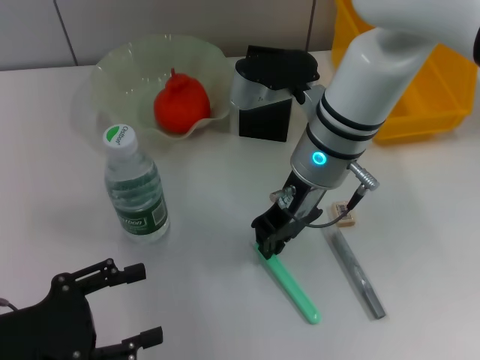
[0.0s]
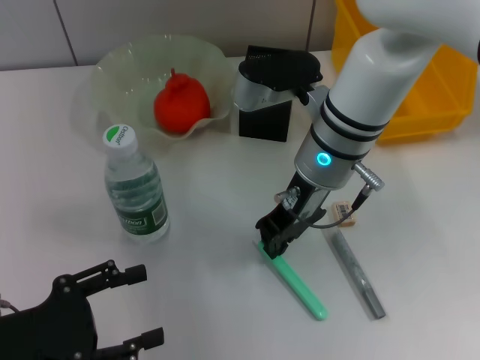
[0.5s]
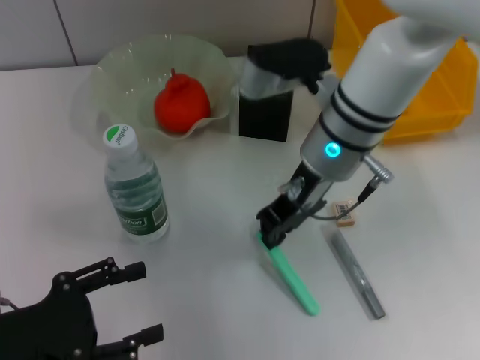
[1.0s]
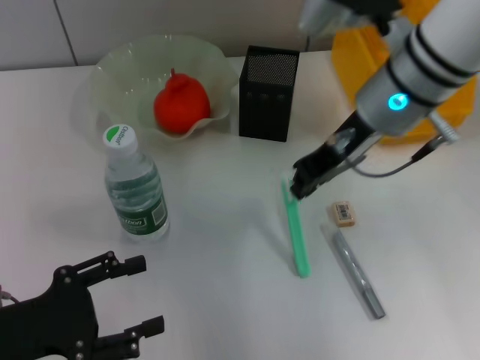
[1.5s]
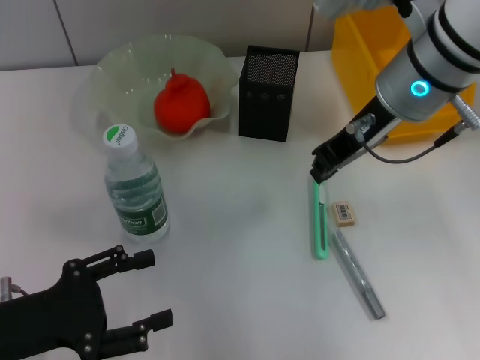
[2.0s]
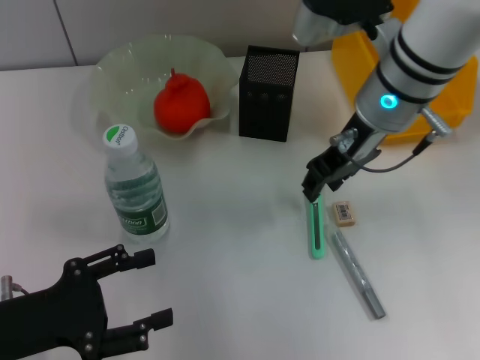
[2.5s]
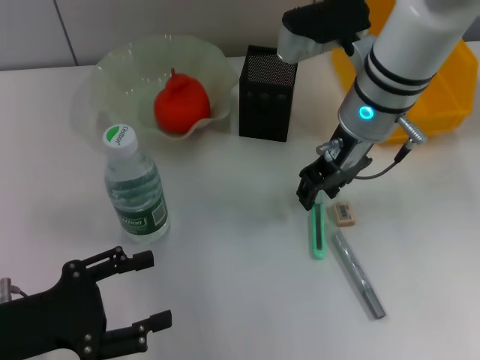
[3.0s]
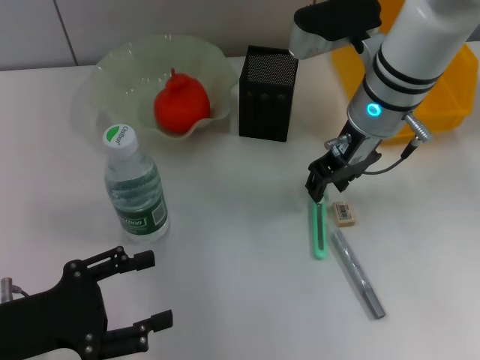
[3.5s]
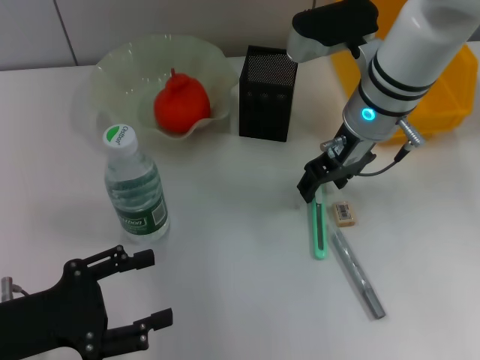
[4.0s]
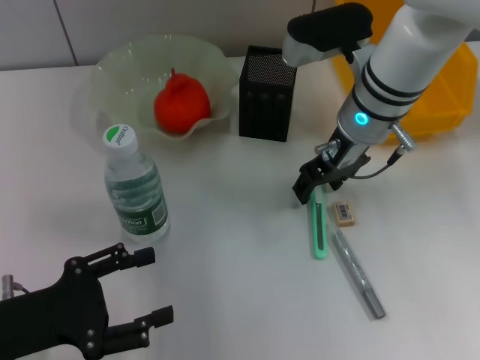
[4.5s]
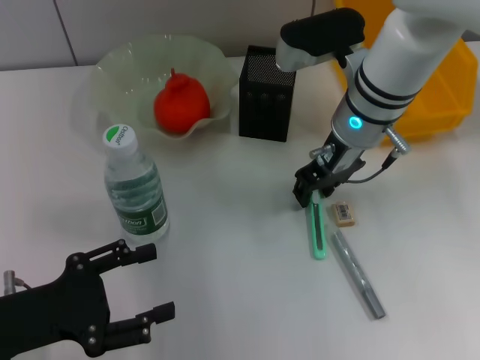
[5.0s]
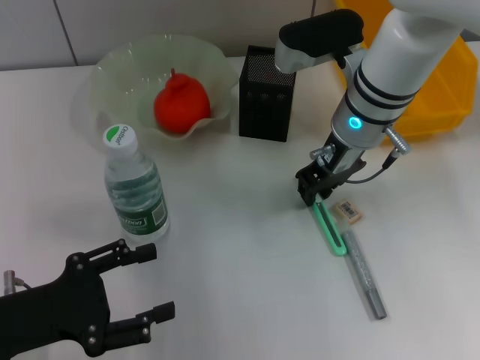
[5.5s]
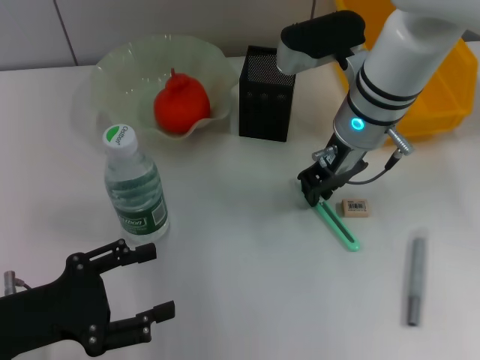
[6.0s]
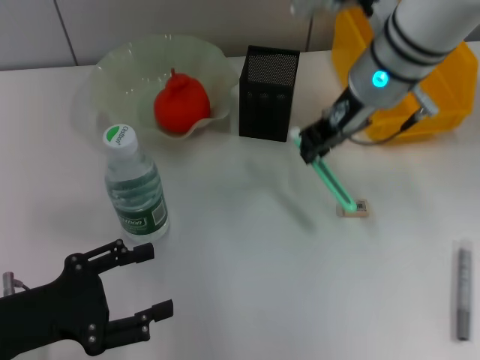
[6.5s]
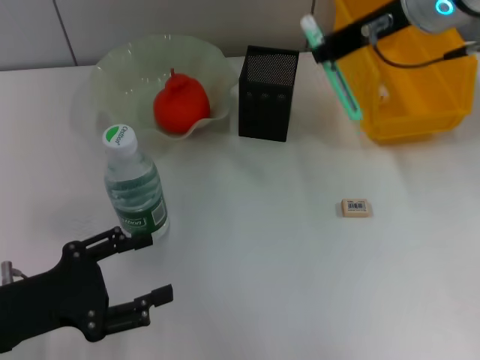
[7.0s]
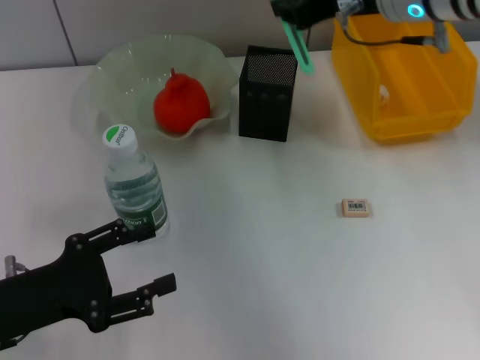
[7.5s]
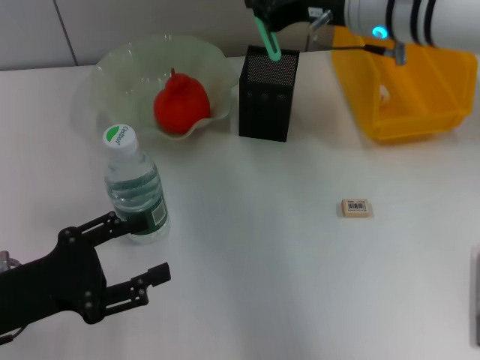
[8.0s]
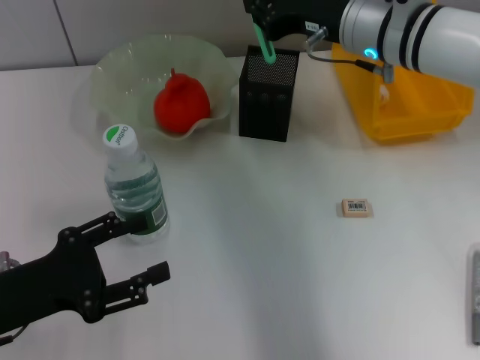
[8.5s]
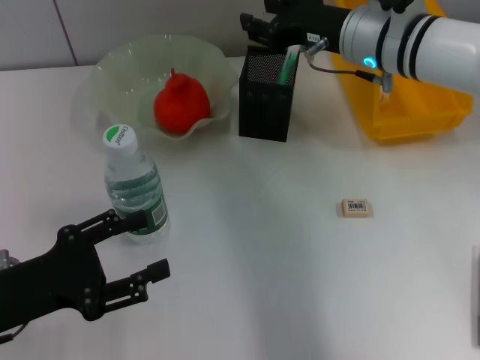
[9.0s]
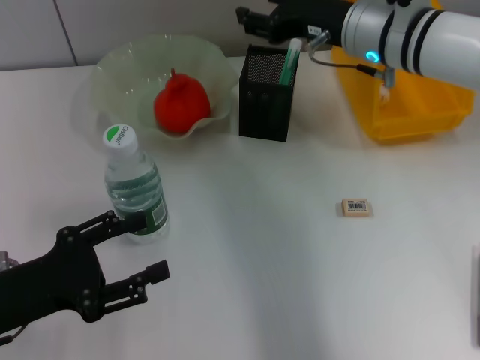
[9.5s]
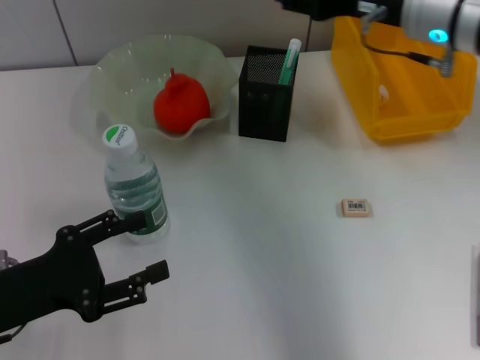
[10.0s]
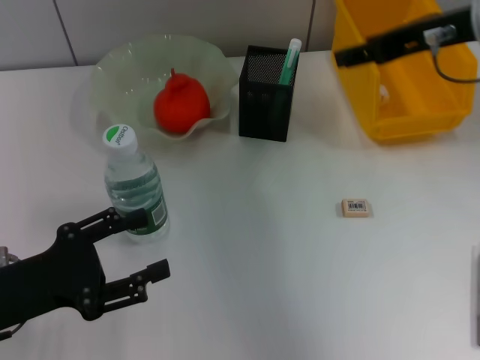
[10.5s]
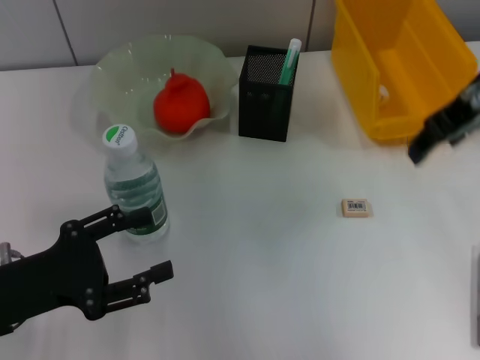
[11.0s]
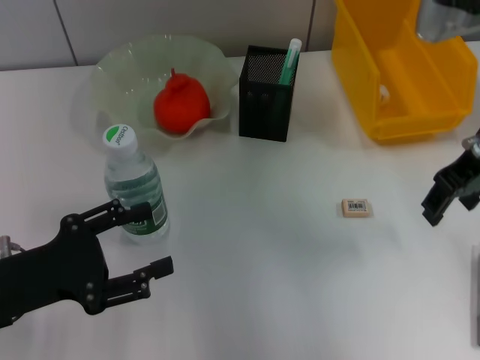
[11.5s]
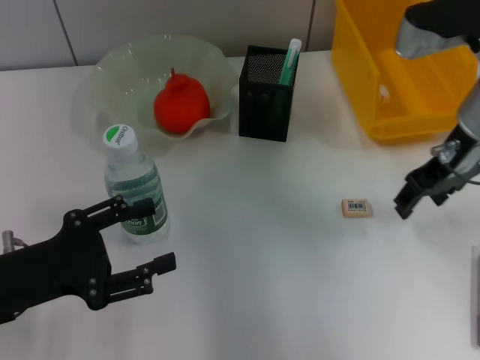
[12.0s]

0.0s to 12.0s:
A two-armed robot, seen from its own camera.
Step, 0.0s to 5.5s: Grab the blue utility knife with the right hand.
Step, 6.0s to 9.0s: Place the blue utility knife into the pen holder with the right hand.
0.0s to 2.0s: The right gripper heads upward and to the right, covering approximately 10 cm.
2.0s to 4.0s: The right gripper shifts about 5 cm downward, and opens up.
4.0s to 6.0s: The right gripper closes.
6.0s to 8.0s: The right gripper shifts about 5 cm upward.
8.0s to 10.0s: The right gripper moves roughly 5 cm, and opens its fingers.
10.0s to 12.0s: The right gripper moves some 5 cm upward and comes back.

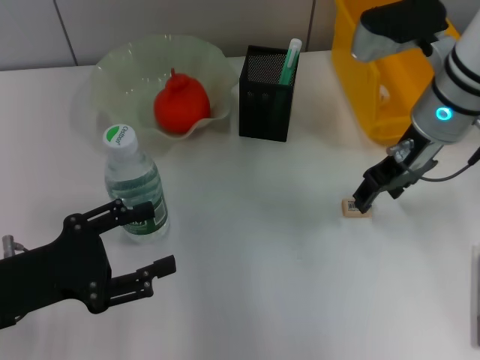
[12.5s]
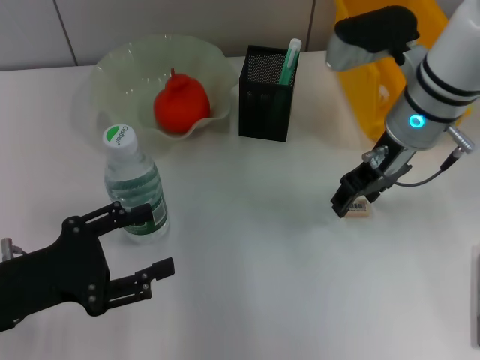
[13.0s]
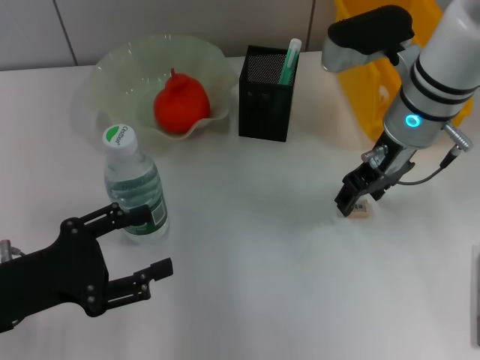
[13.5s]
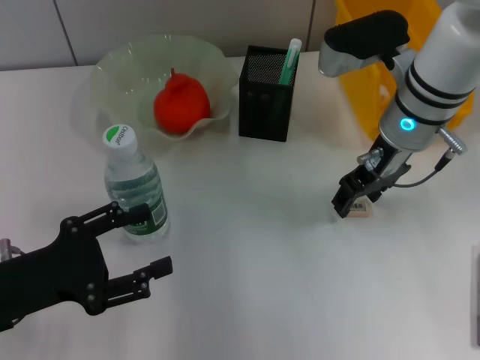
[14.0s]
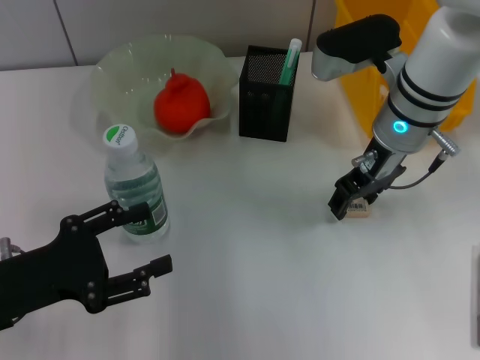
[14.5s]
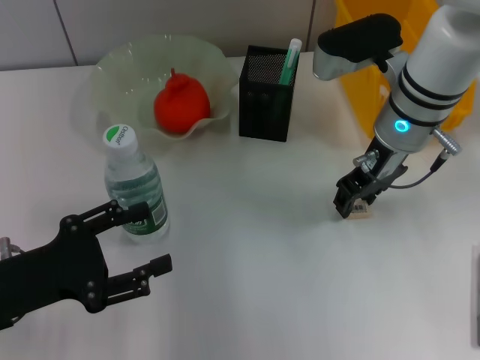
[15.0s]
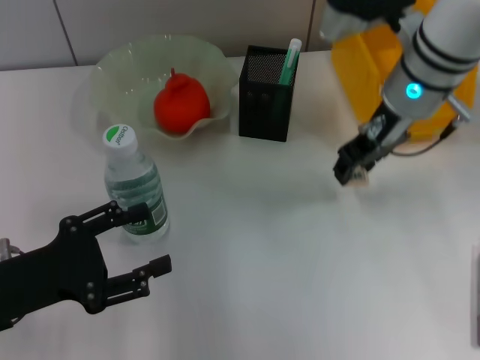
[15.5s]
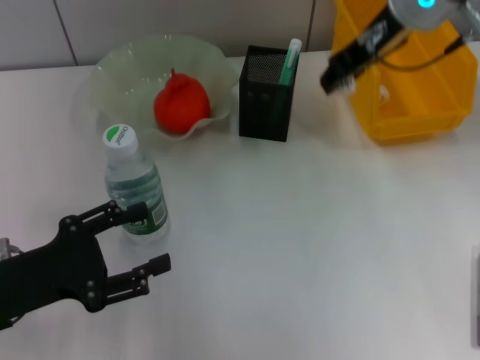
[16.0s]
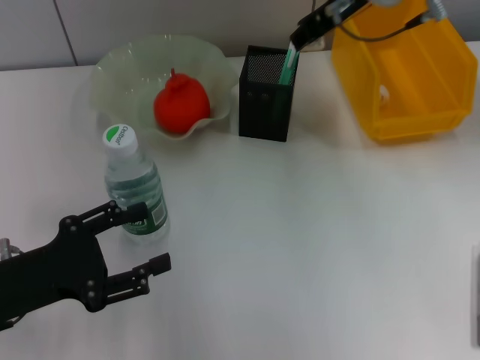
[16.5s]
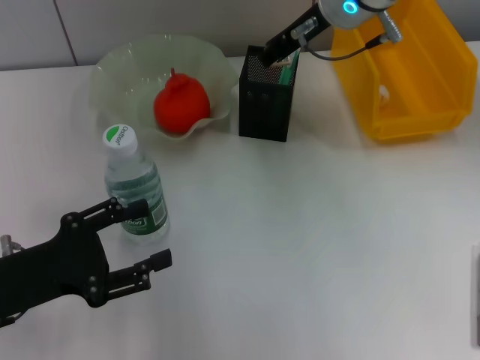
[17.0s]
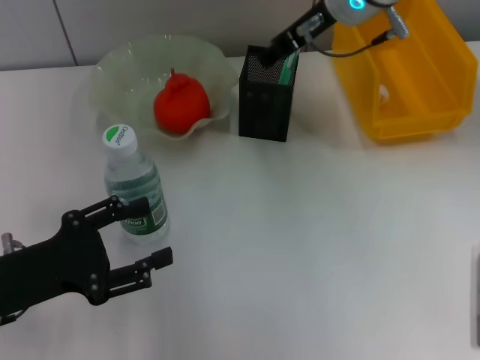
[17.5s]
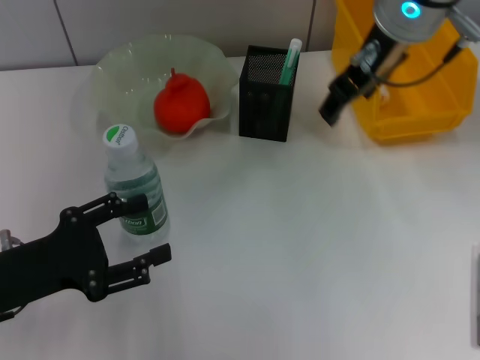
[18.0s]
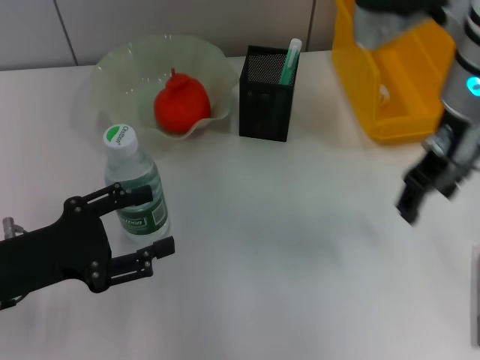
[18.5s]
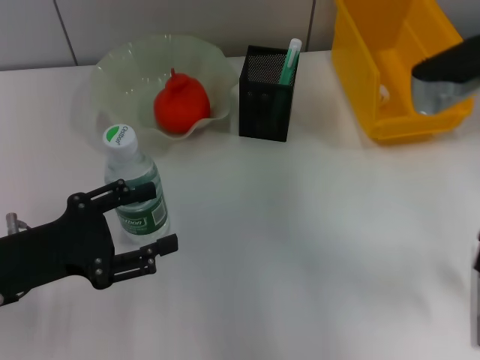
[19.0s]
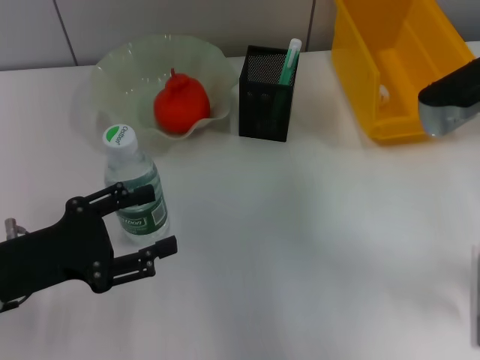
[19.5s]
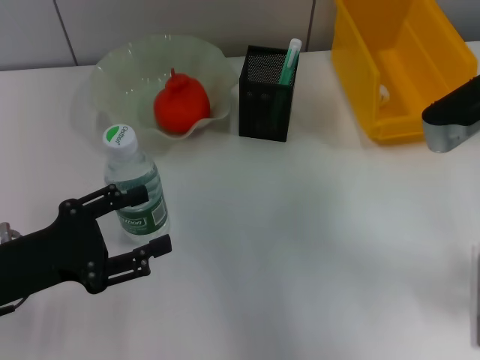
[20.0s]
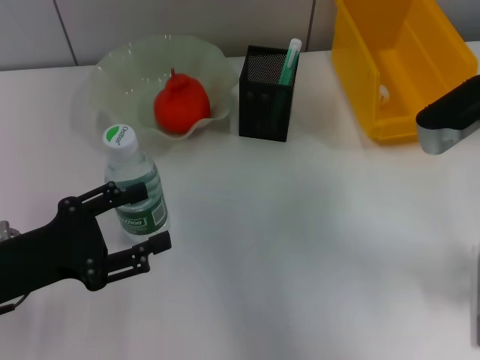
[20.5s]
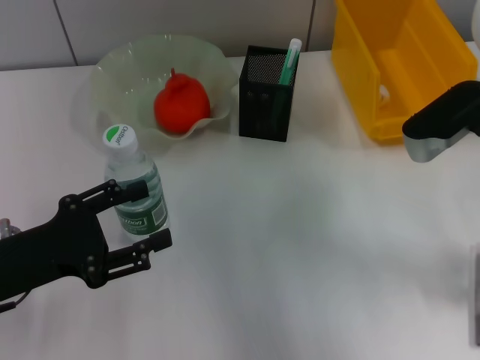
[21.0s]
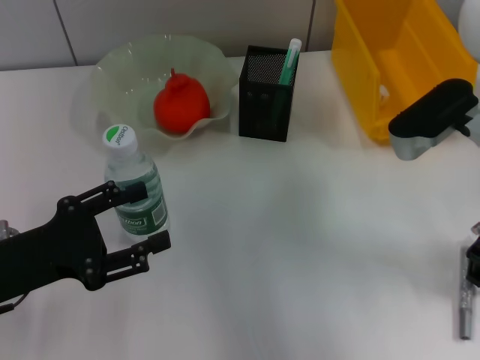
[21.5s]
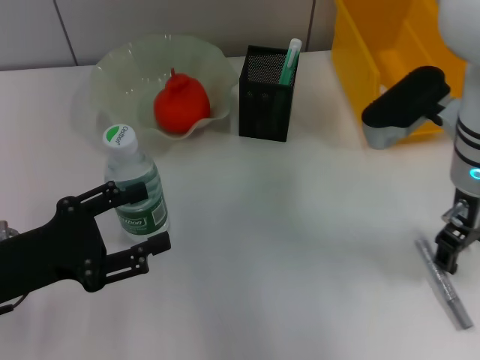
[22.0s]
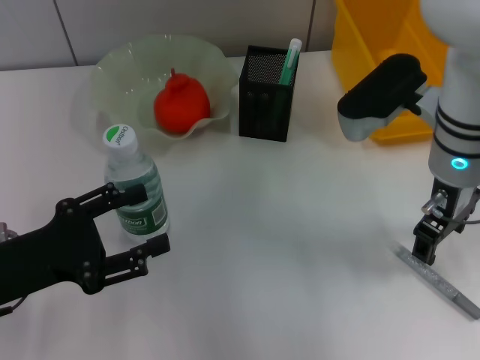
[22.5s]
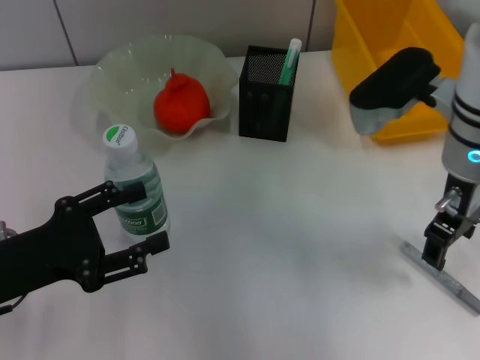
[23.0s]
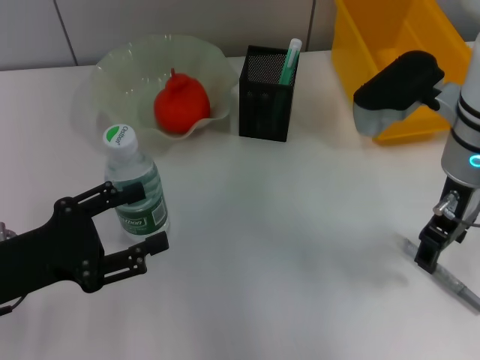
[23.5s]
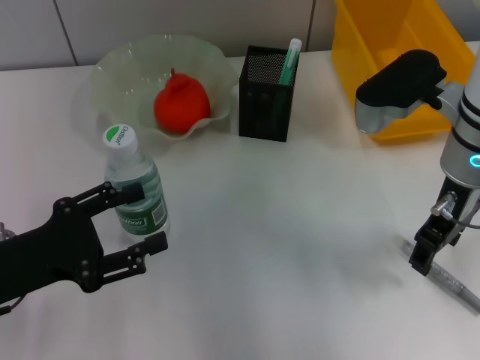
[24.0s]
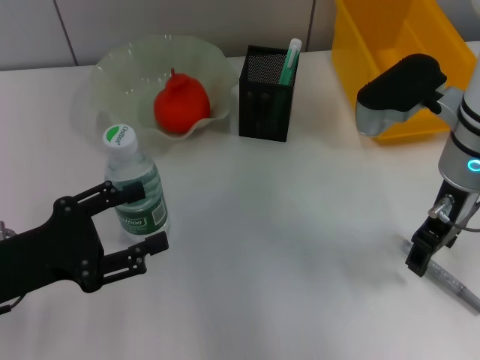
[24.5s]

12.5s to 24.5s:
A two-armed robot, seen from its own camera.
Step, 12.5s to 15.0s: Grab the eraser with the right hand.
Step, 15.5s to 17.0s: Put the eraser into the pen holder with the right hand.
12.5s to 14.5s: There are only small adjustments of the grippers.
14.5s to 16.5s: The right gripper travels upward by about 10 cm.
16.5s to 18.5s: The right gripper heads backward, covering some 10 cm, and opens.
18.5s to 20.5s: The right gripper goes approximately 10 cm downward and to the right.
20.5s to 22.5s: The right gripper shifts roughly 5 cm to the left.
22.5s to 24.5s: There are only small adjustments of the grippers.

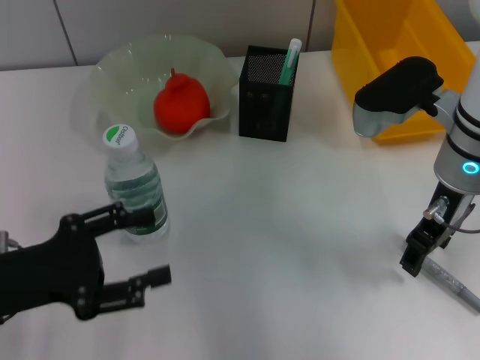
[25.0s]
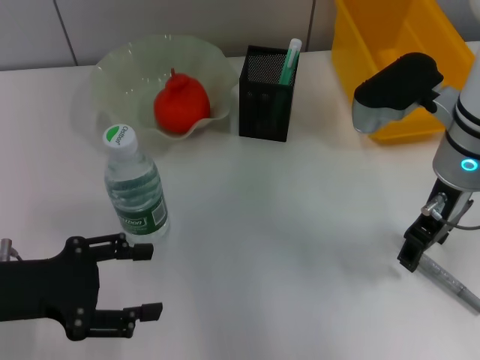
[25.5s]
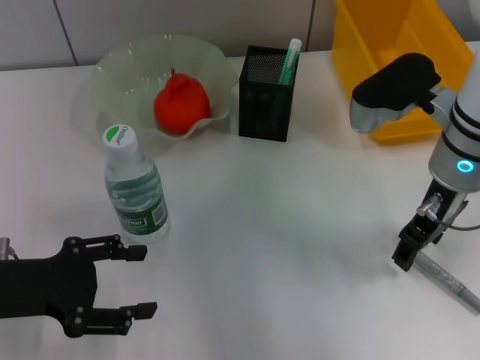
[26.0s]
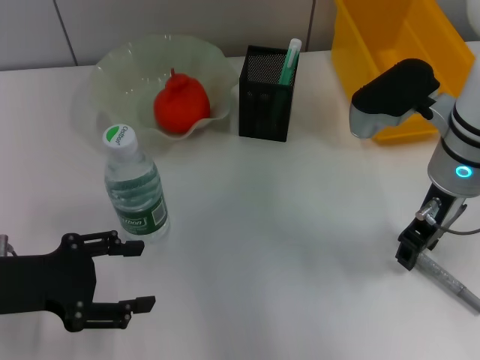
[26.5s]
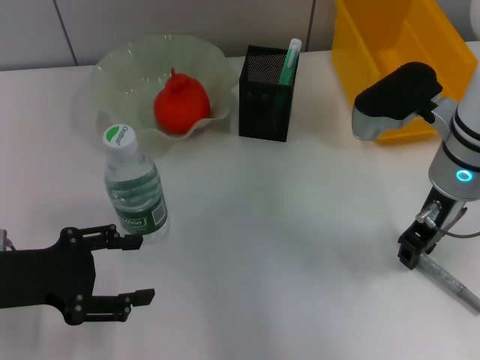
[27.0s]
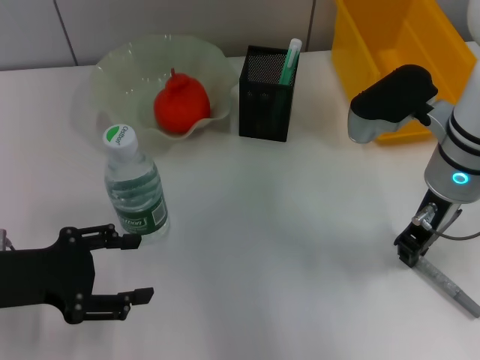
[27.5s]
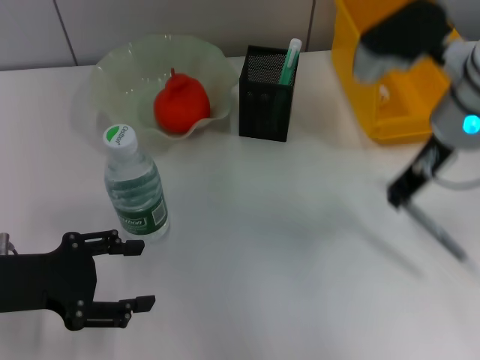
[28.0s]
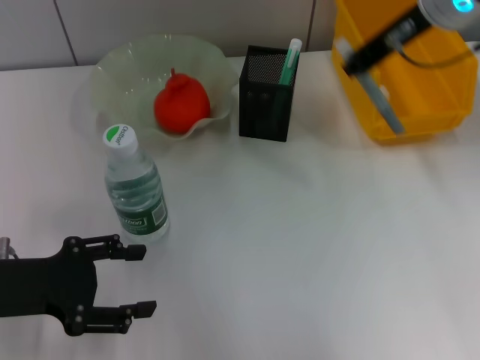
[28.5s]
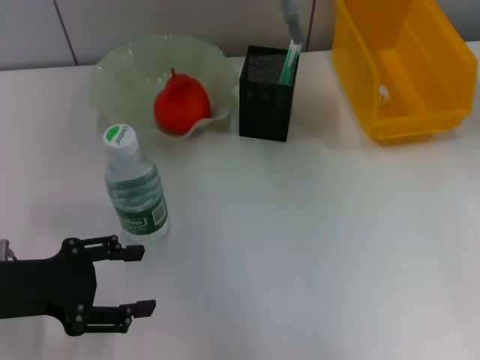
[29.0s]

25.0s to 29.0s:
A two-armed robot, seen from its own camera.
Step, 25.0s to 27.0s: Grab the gray glue with the right hand.
25.0s to 27.0s: The right gripper closes up.
27.0s to 29.0s: The right gripper heads upward and forward, covering roughly 15 cm.
